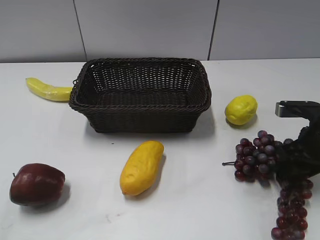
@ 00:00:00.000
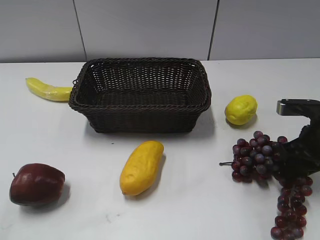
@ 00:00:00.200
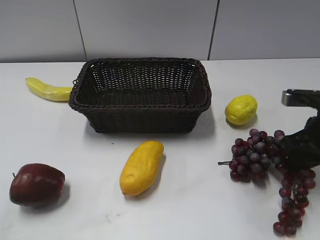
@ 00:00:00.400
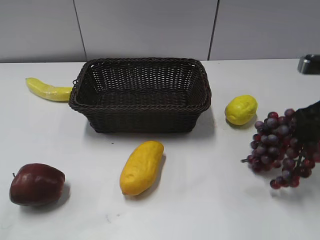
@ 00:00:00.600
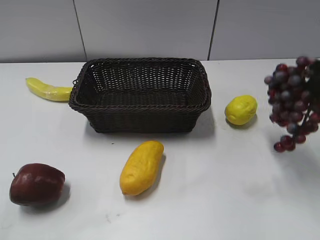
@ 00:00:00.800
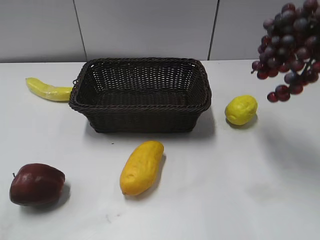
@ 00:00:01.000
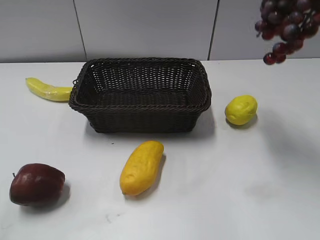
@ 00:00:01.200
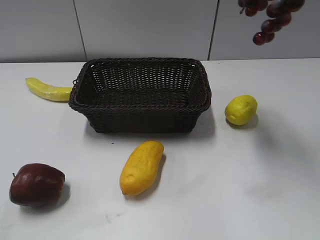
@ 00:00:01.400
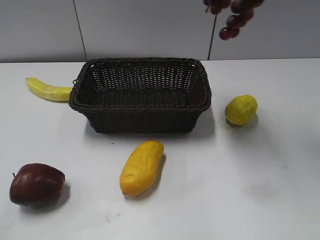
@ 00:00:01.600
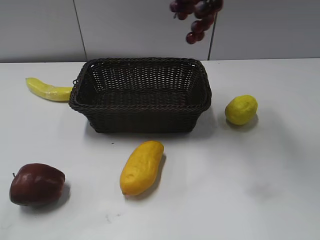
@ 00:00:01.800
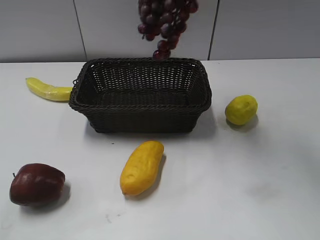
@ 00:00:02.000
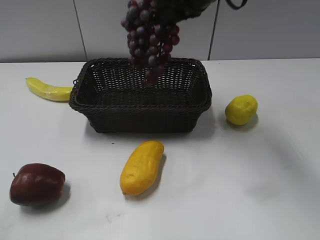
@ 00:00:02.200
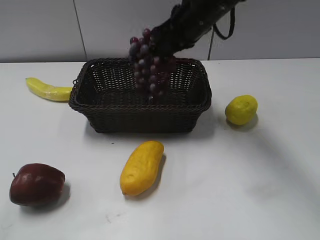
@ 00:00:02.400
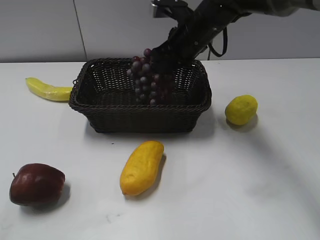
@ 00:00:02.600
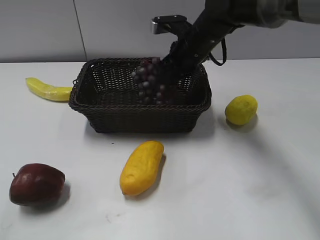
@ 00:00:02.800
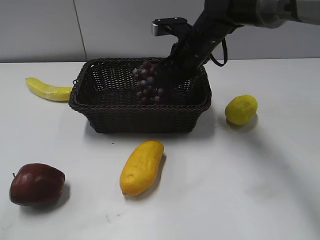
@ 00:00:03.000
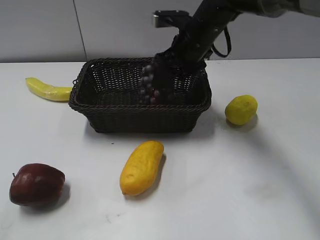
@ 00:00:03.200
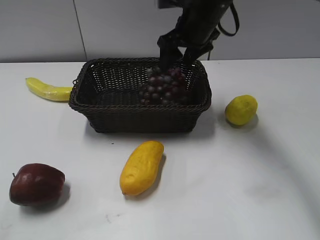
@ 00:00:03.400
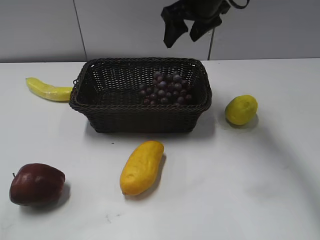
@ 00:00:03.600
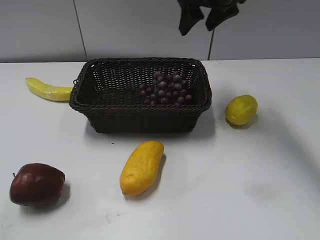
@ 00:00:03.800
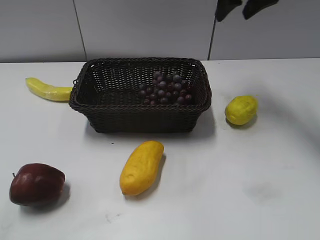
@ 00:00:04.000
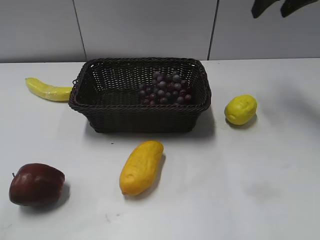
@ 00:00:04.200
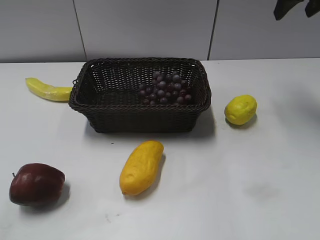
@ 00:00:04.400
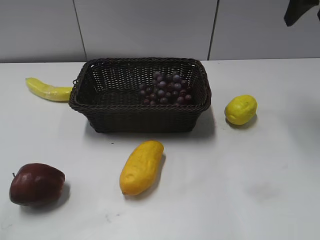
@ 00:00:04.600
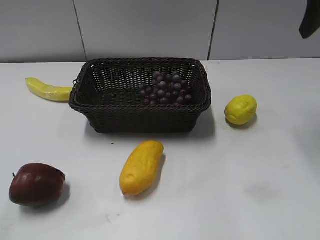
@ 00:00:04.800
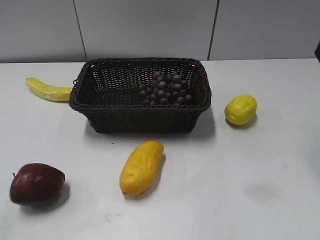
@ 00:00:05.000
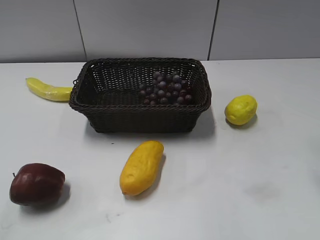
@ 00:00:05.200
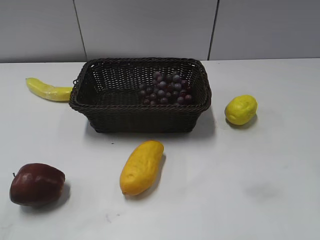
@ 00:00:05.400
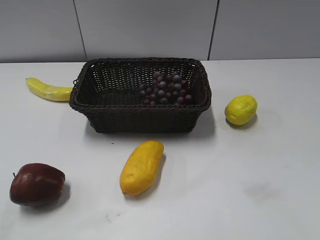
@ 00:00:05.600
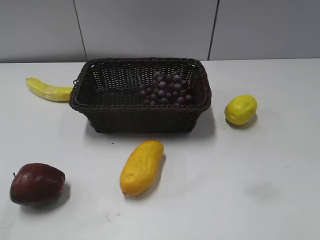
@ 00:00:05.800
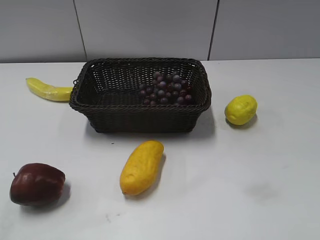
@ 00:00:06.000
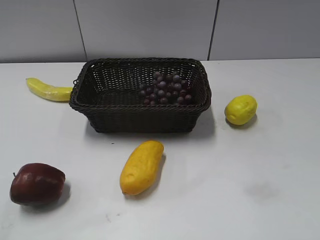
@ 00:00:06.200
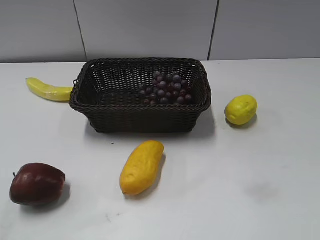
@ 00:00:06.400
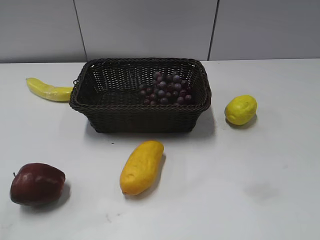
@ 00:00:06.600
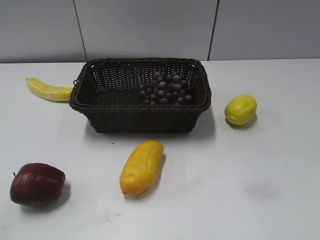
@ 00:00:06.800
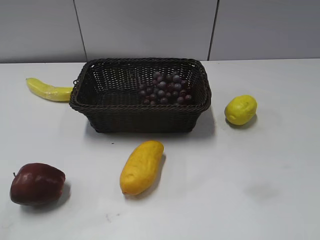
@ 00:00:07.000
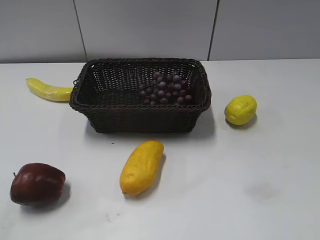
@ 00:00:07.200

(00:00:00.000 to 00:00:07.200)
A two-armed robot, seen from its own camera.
Step, 00:00:00.800 - 00:00:03.400: Place the grape in the basket with right gripper.
00:00:00.000 - 00:00:01.400: The right gripper travels upward by approximately 30 cm, and closes.
00:00:01.400 - 00:00:02.800: The right gripper travels downward, to the left and forward by roughly 35 cm.
00:00:02.800 - 00:00:04.400: The right gripper shifts approximately 25 cm to the right and upward, and opens.
00:00:04.400 - 00:00:05.800: The right gripper moves backward, about 30 cm.
